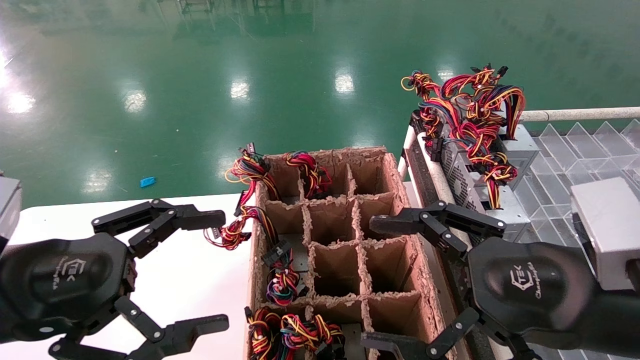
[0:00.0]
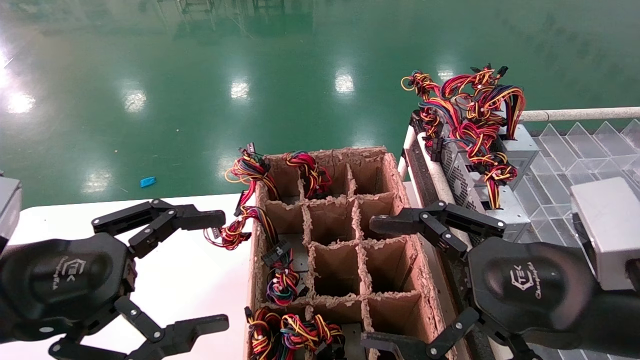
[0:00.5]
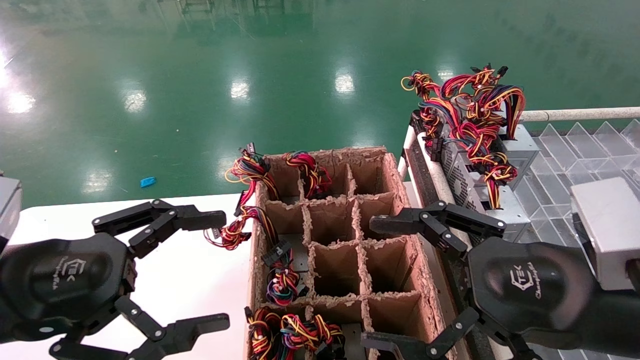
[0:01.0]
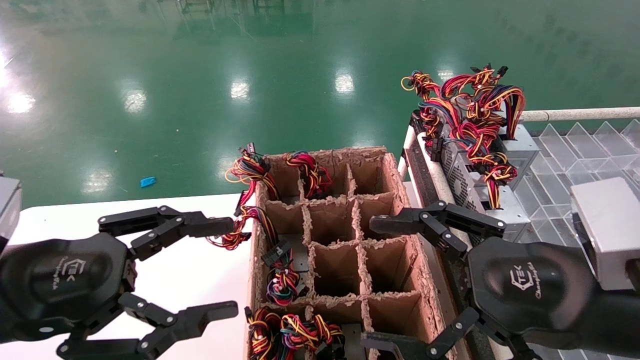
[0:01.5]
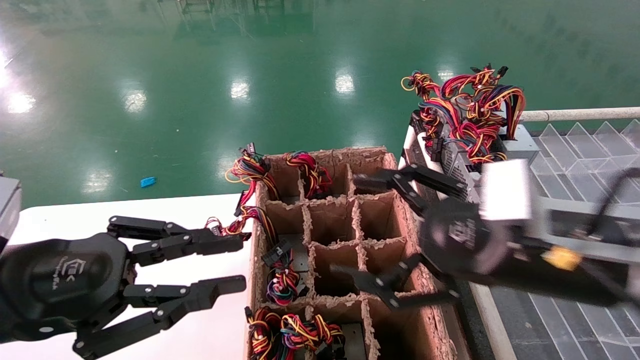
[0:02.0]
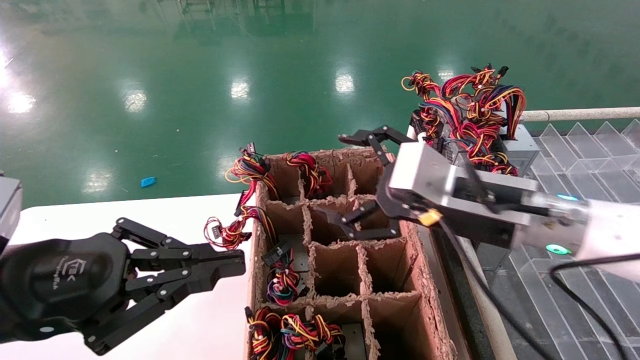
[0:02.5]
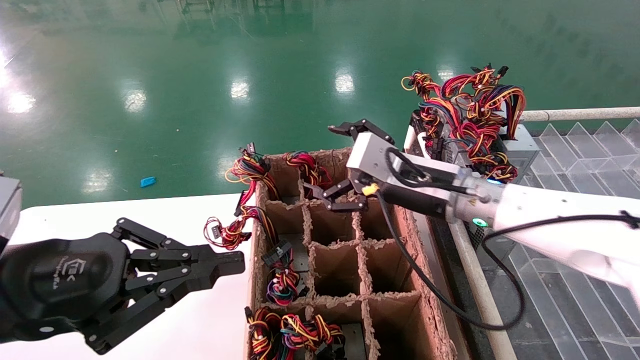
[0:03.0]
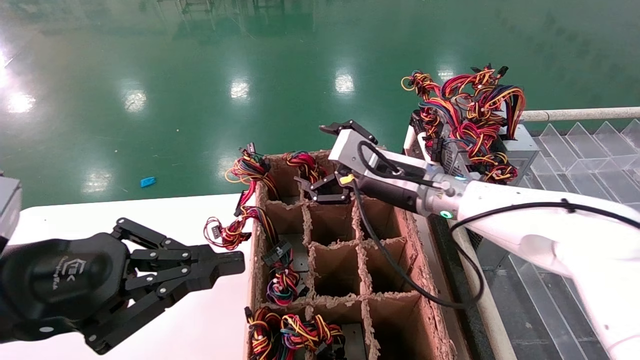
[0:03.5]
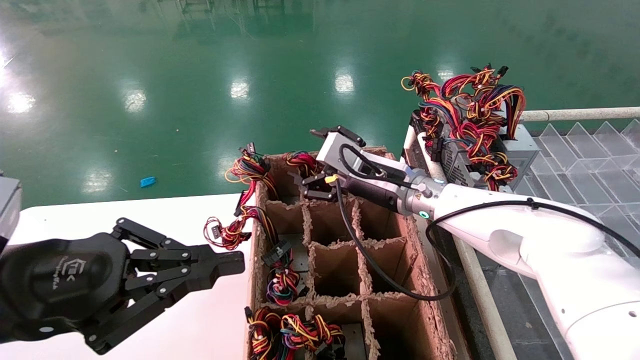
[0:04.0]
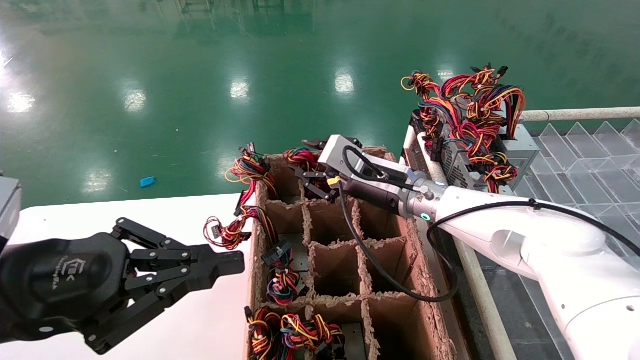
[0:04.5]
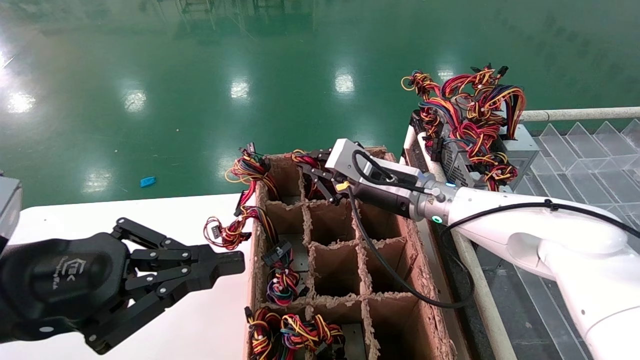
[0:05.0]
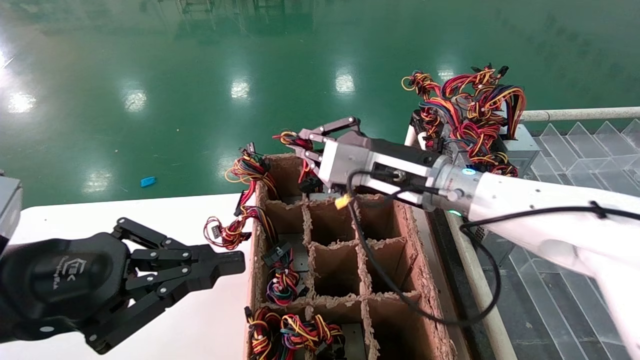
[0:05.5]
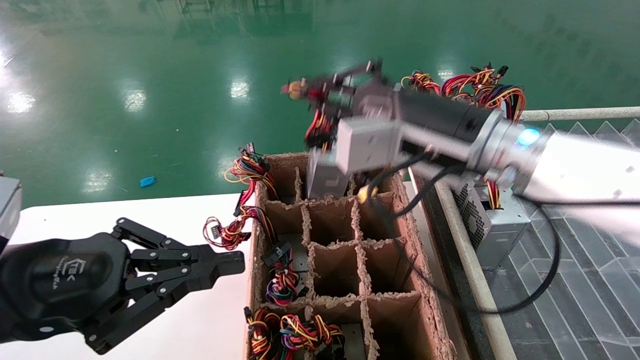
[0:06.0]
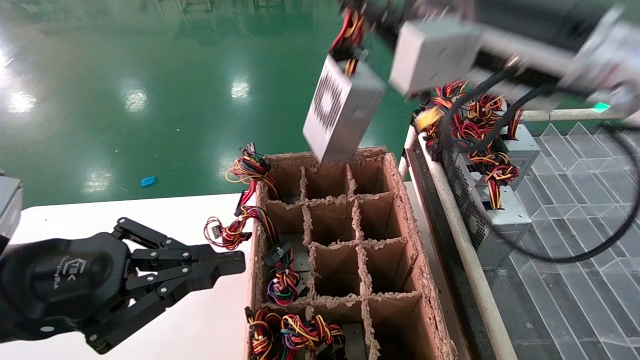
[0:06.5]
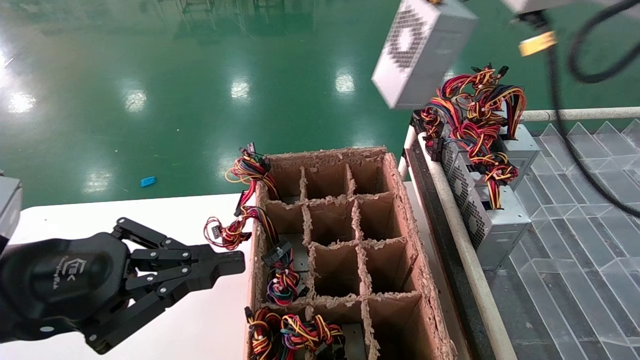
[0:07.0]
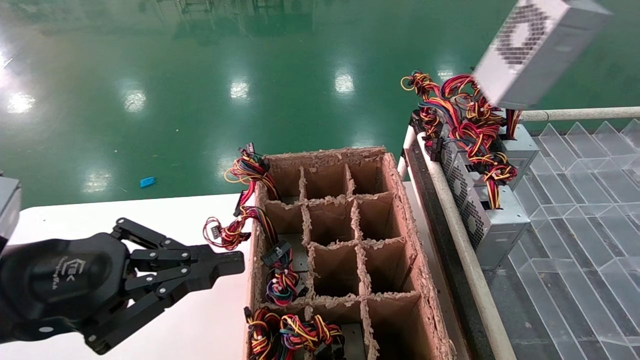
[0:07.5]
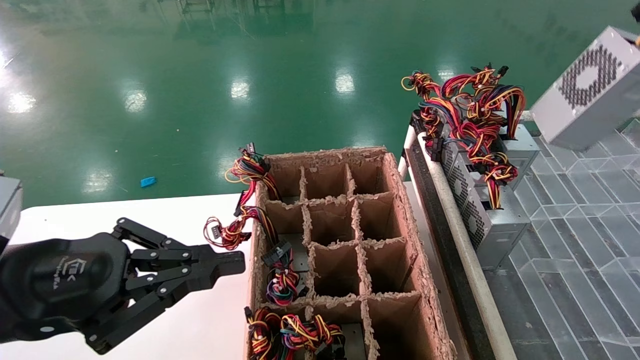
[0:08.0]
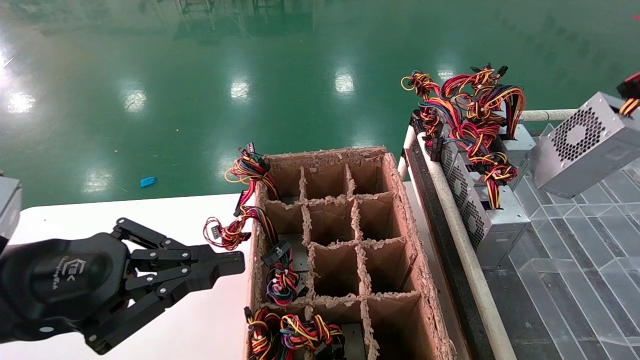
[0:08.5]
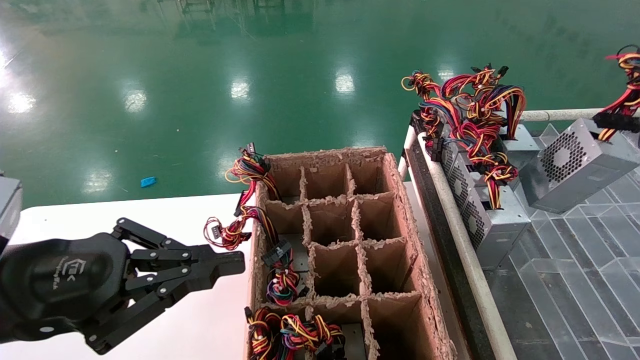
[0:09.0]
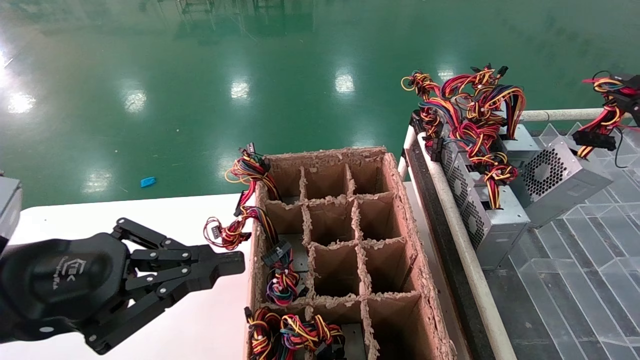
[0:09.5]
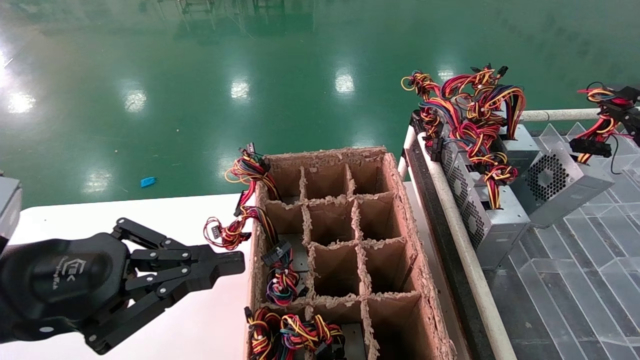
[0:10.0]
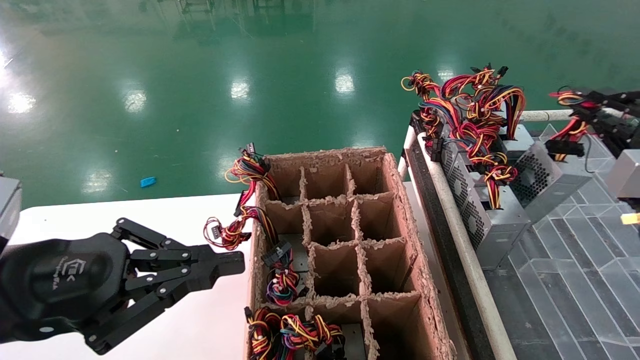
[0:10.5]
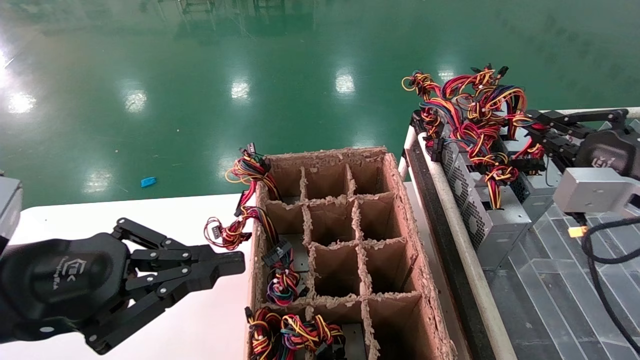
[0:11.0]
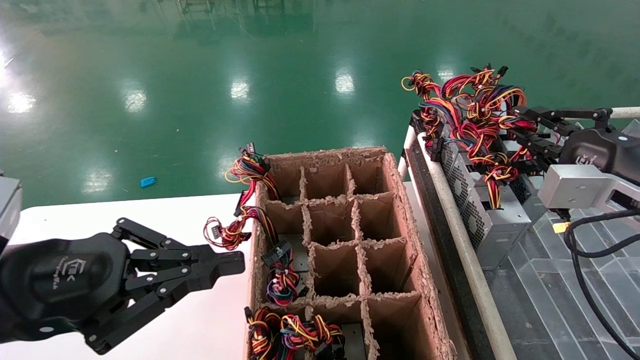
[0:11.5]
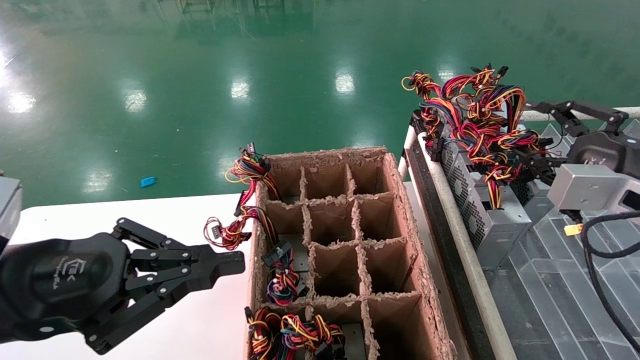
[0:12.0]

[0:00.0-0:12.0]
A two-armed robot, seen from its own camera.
Step, 0:02.5 to 0:05.0: Grab the main unit power supply from the containment box.
0:00.0 to 0:02.0: The right gripper goes approximately 5 cm forward; the left gripper closes its fingers.
0:02.0 to 0:04.0: The right gripper shifts about 25 cm forward and to the left. Meanwhile the left gripper closes up.
0:04.0 to 0:06.0: The right gripper heads backward and upward, covering roughly 15 cm, and closes.
0:06.0 to 0:08.0: The right gripper moves to the right and backward, approximately 30 cm.
0:08.0 to 0:10.0: The right gripper shifts roughly 15 cm downward and forward.
0:10.0 to 0:12.0: The right gripper shifts approximately 5 cm to the left, and opens up.

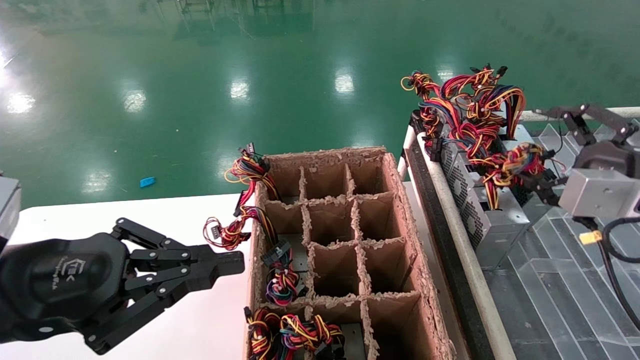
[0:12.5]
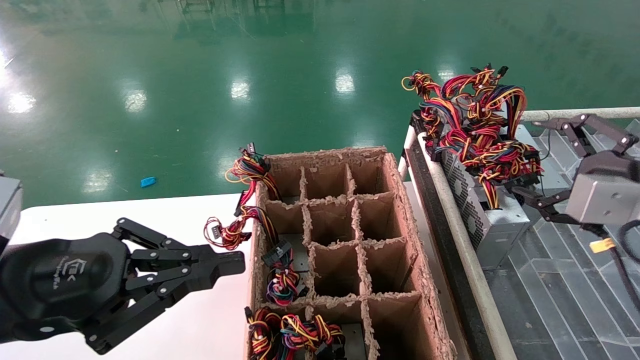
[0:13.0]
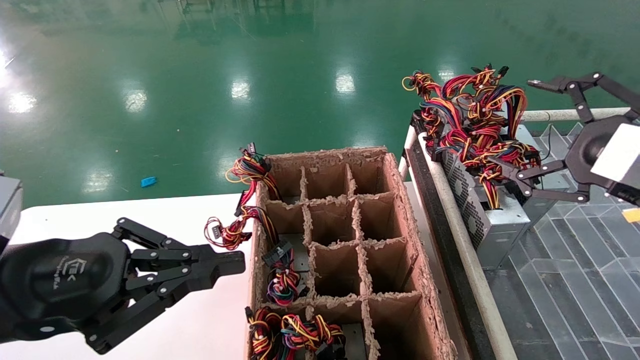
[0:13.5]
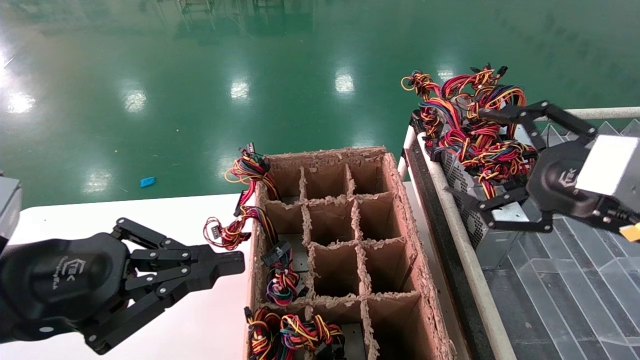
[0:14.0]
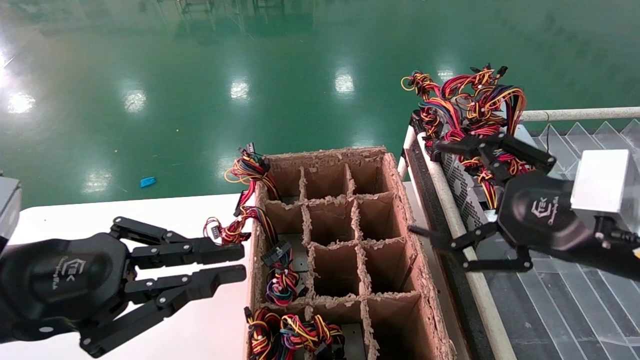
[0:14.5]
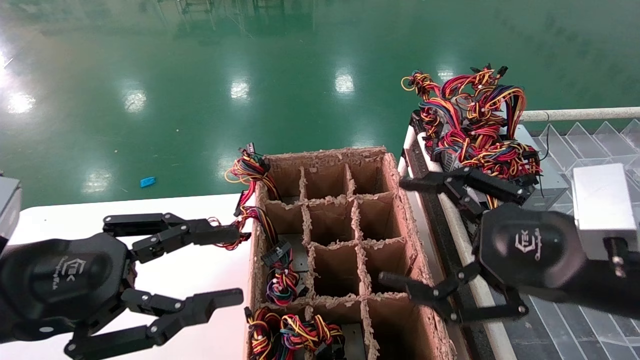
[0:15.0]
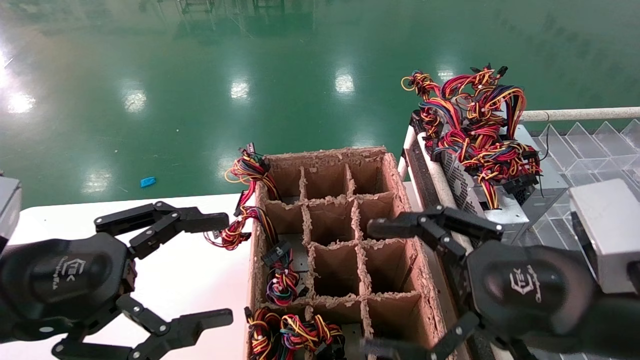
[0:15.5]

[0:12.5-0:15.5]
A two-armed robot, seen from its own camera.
0:12.5 to 0:14.0: The right gripper goes approximately 5 cm to the left.
0:14.0 to 0:15.5: The left gripper opens. Meanwhile the right gripper is displaced to the left by about 10 cm.

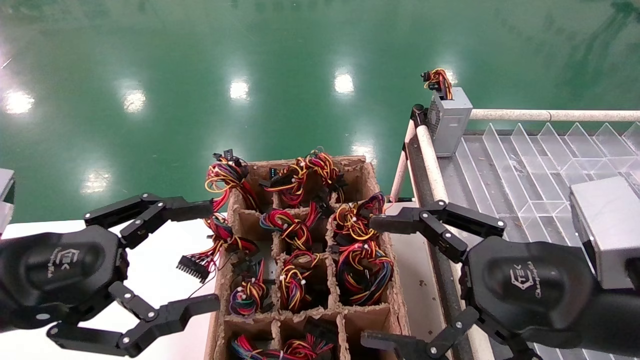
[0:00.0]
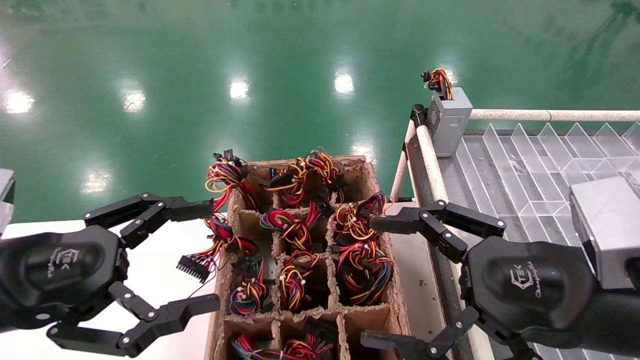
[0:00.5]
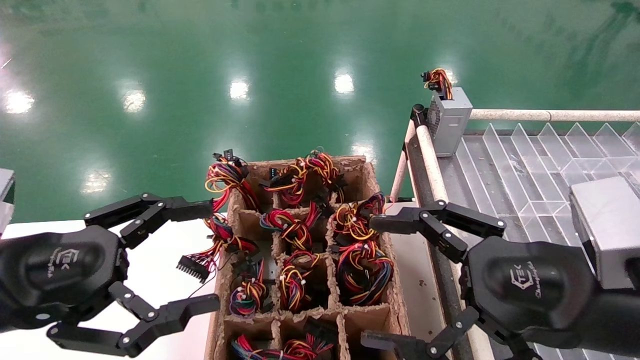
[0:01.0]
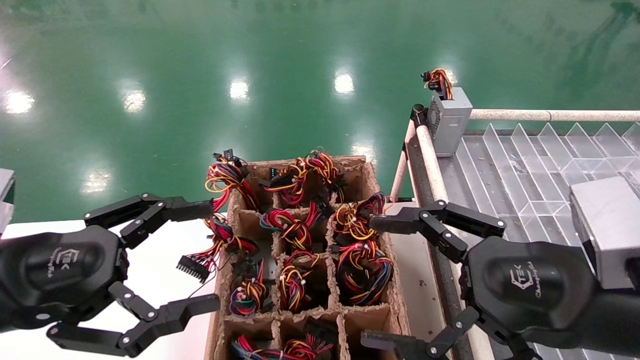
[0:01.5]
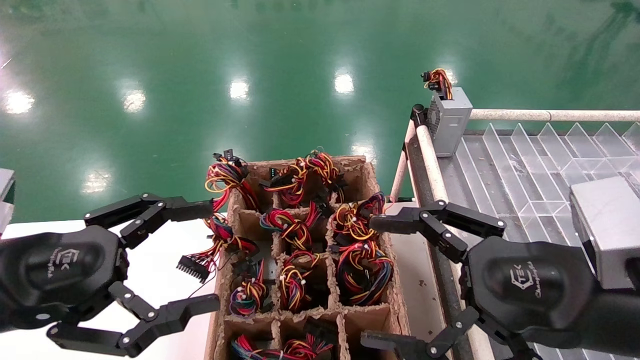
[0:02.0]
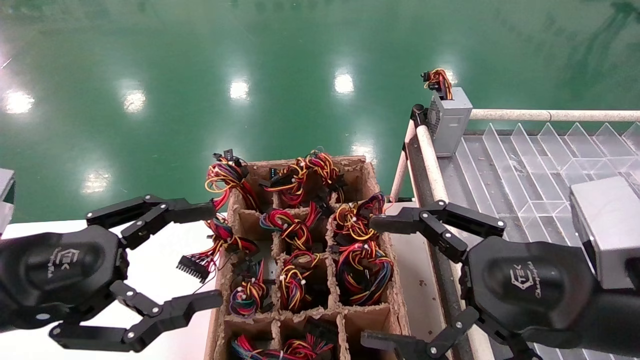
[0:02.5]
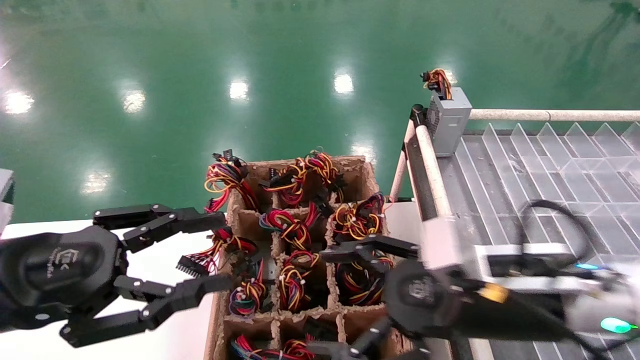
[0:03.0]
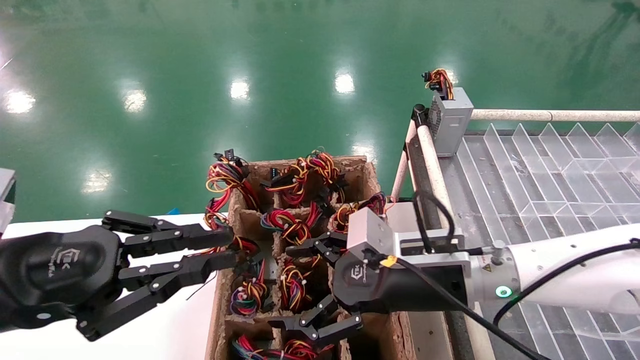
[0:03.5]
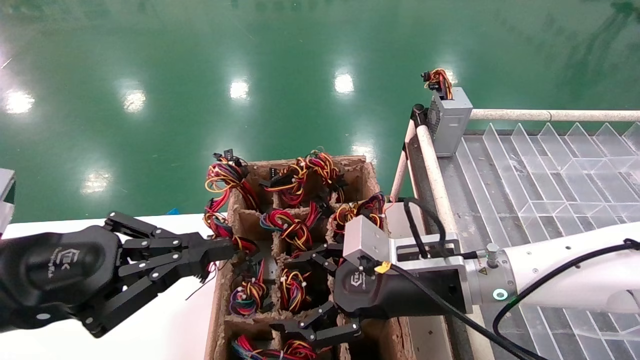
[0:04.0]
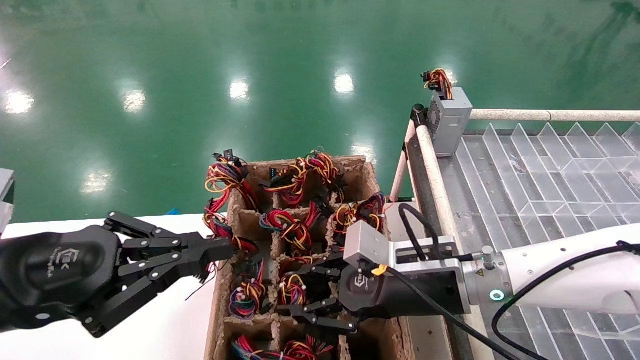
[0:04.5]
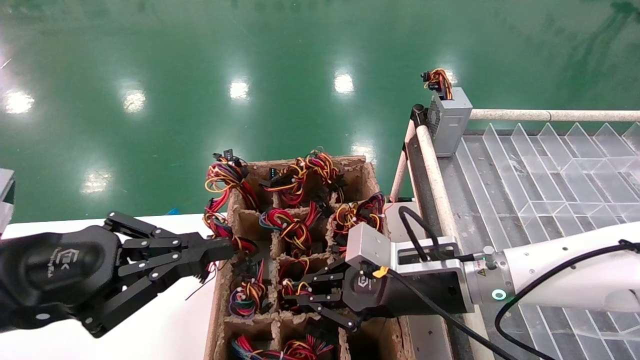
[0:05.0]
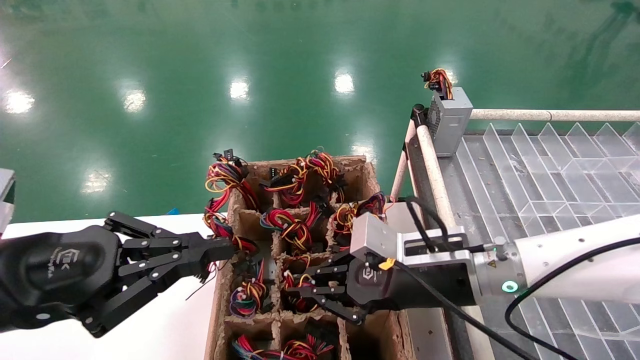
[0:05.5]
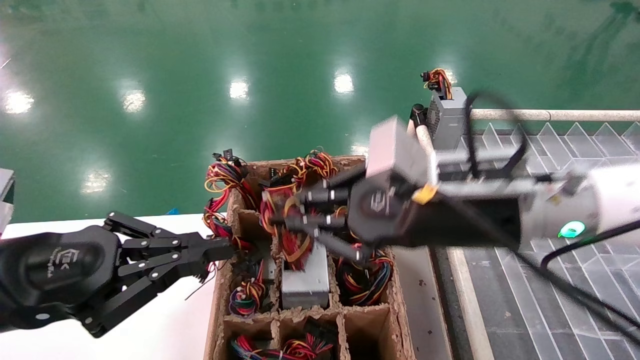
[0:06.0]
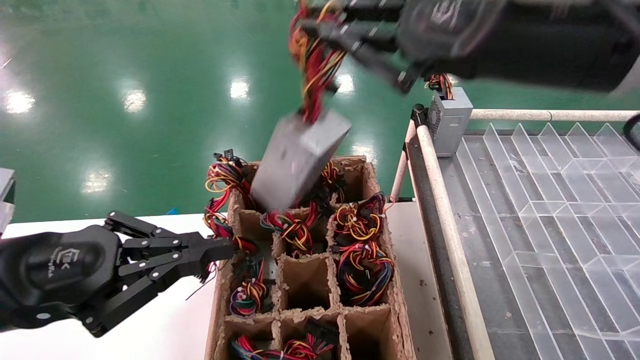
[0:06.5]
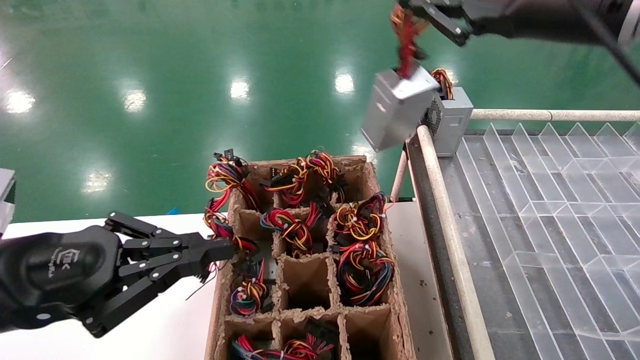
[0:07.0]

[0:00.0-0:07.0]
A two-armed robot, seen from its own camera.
Step, 0:03.0 to 0:05.0: Grab the main unit power supply from the containment box.
0:00.0 to 0:02.0: Both grippers stay put.
0:02.0 to 0:03.5: The left gripper closes its fingers. Meanwhile the right gripper moves forward, to the left and downward, approximately 15 cm.
0:03.5 to 0:05.0: The right gripper closes its fingers.
0:05.0 to 0:07.0: The right gripper goes some 30 cm upward.
